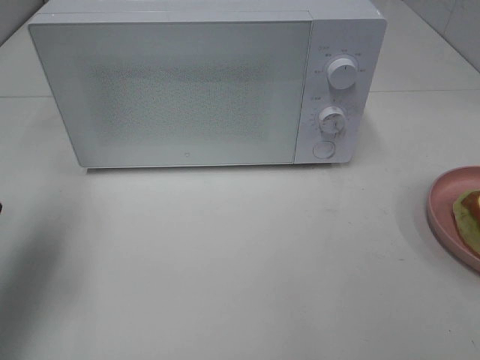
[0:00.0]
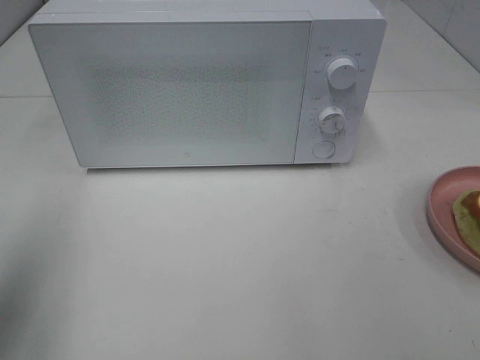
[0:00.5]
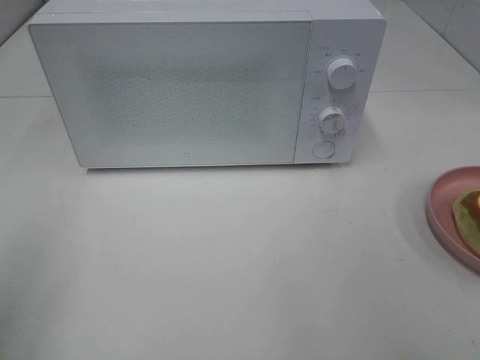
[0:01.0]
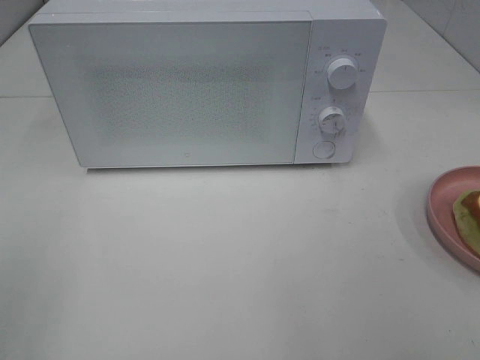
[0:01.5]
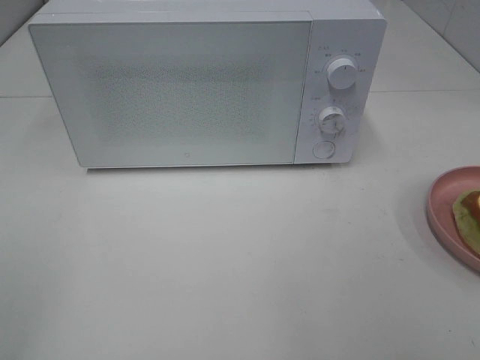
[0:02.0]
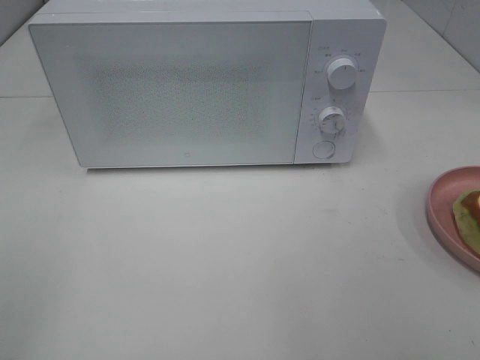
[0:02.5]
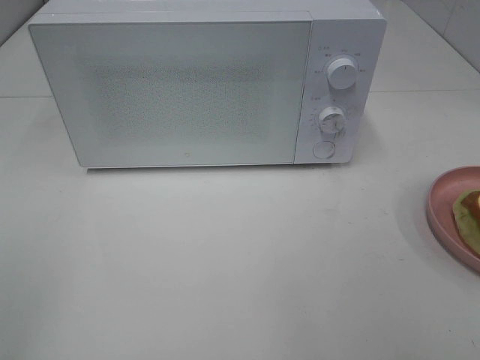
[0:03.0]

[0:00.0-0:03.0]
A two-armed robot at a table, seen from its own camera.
Task of the whole recording: Heat Sandwich.
0:00.0 to 0:01.5: The left gripper heads backward, covering approximately 20 cm.

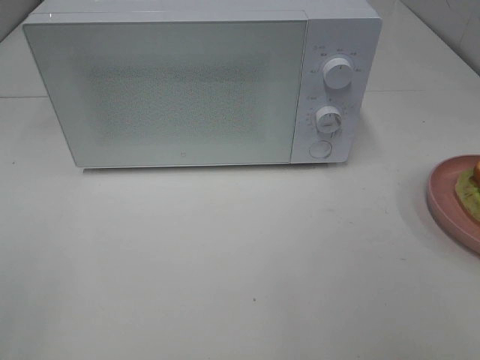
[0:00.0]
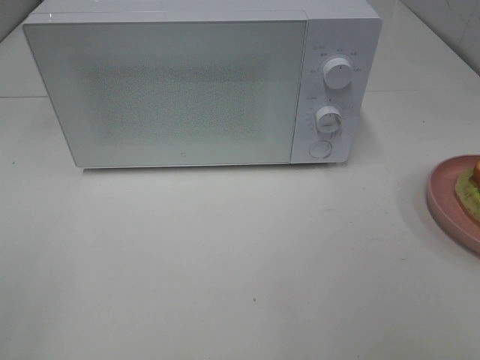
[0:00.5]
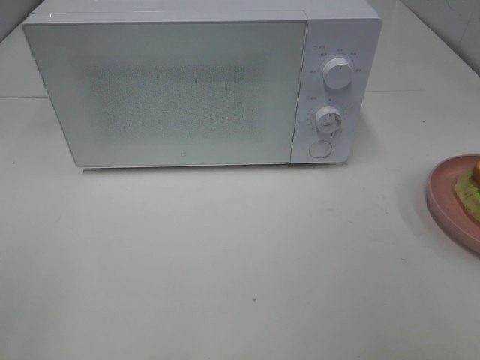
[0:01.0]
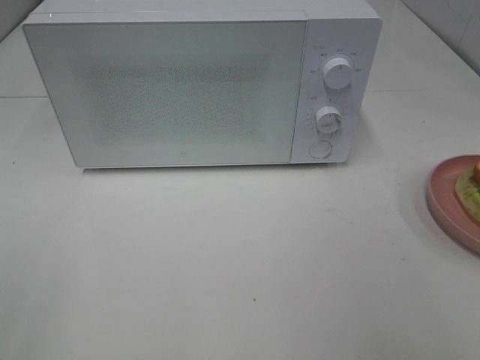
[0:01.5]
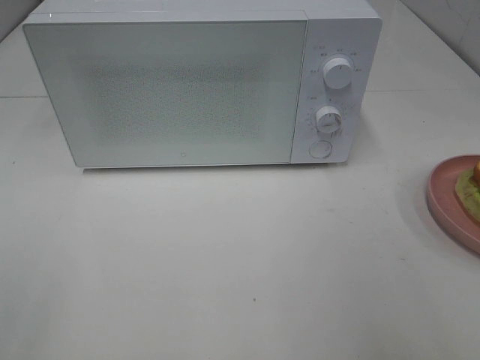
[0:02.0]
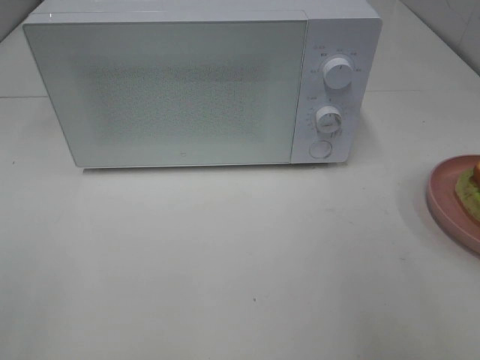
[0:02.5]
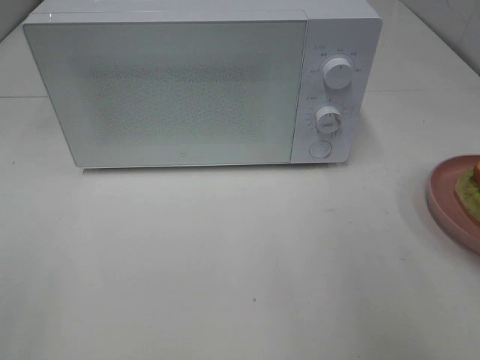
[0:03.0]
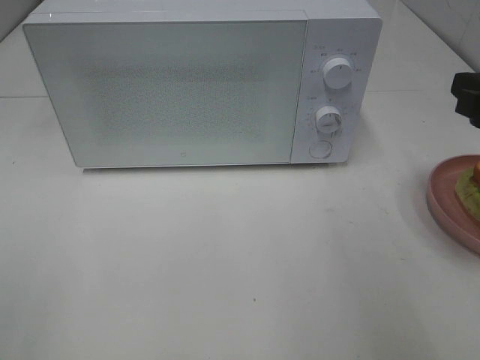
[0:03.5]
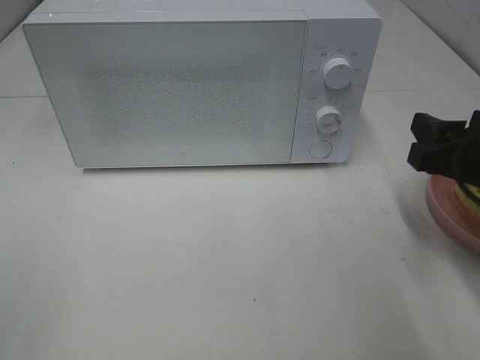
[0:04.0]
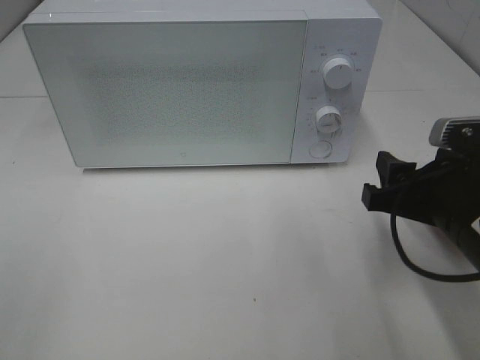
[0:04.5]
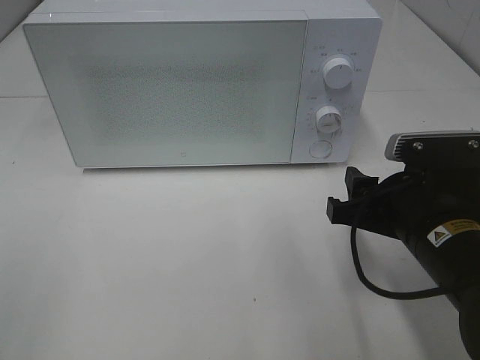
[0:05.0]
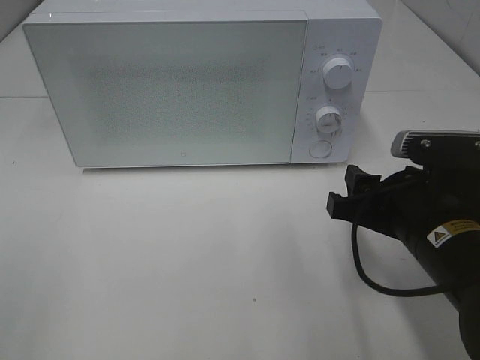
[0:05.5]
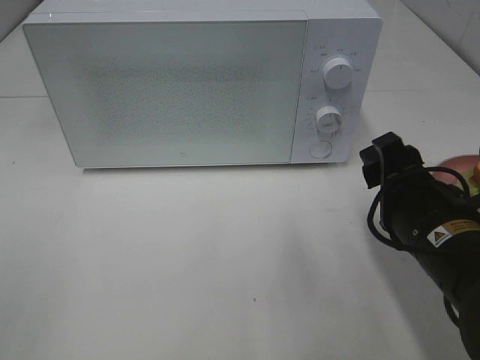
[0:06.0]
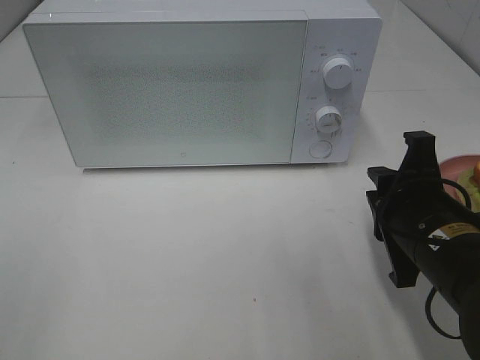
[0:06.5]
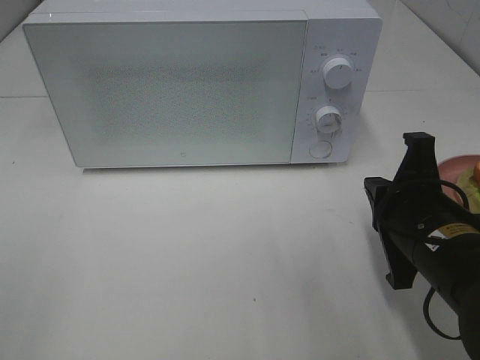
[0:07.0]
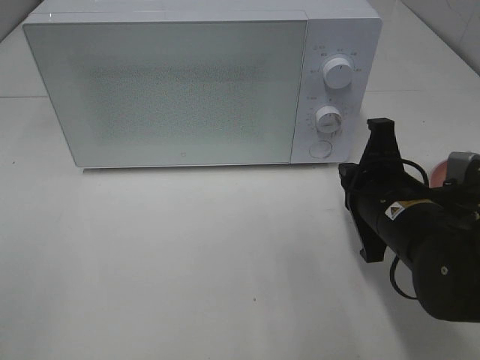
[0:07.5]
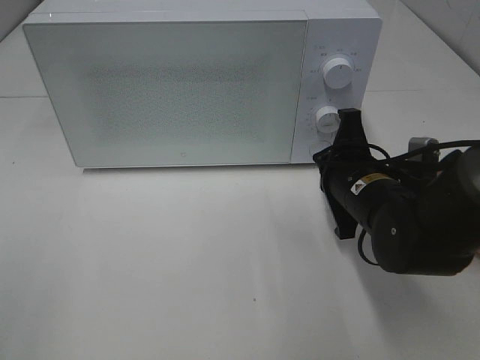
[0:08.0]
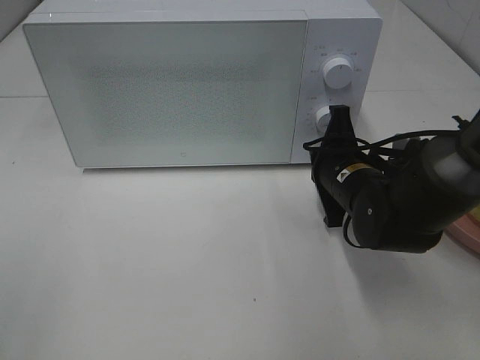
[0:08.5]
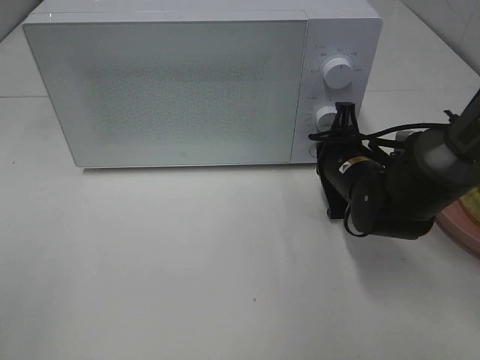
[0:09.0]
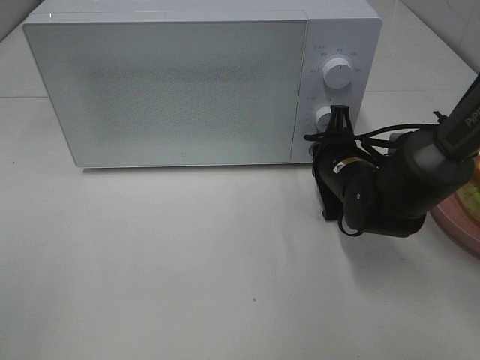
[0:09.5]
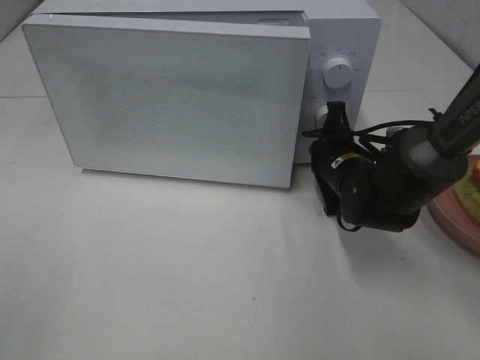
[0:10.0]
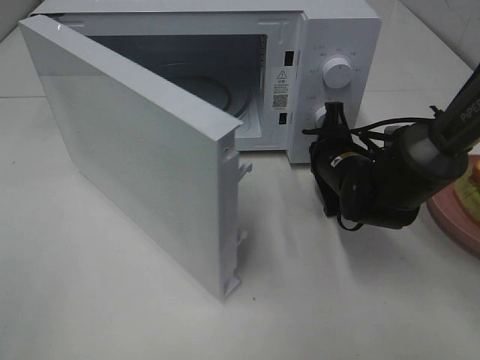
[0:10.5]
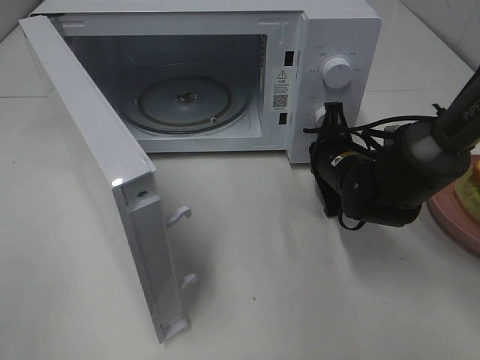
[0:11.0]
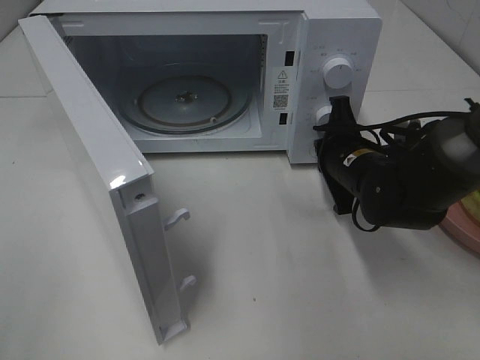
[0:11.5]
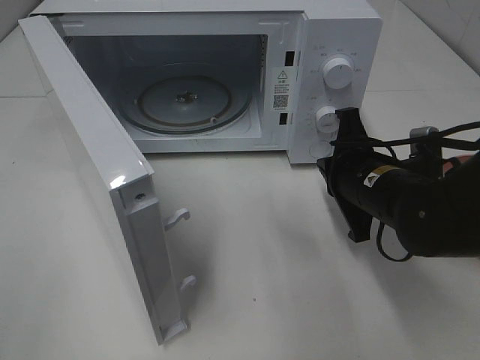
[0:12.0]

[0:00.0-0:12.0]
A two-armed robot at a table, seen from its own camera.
Task of the whole recording: Heat Sandwich.
Step, 0:00.0 to 0:11.5: Right hand: press the switch.
0:02.0 to 0:04.0: The right gripper shifts some 20 cm forward and downward.
0:04.0 to 0:06.0: The right gripper is displaced to the left by about 5 cm.
0:06.0 to 0:08.0: The right gripper heads forward, covering approximately 10 cm, and closes.
0:08.0 to 0:10.0: The right gripper is displaced forward by approximately 5 cm.
0:10.0 to 0:12.0: The right gripper goes about 10 cm backward.

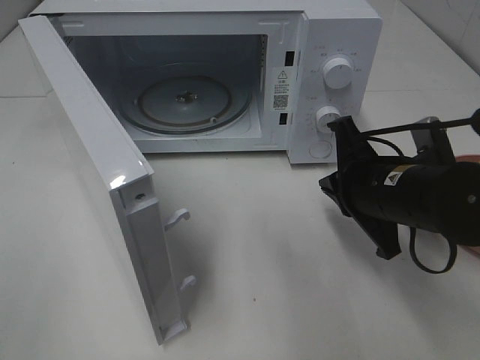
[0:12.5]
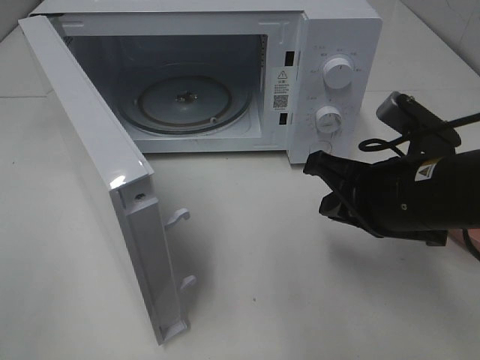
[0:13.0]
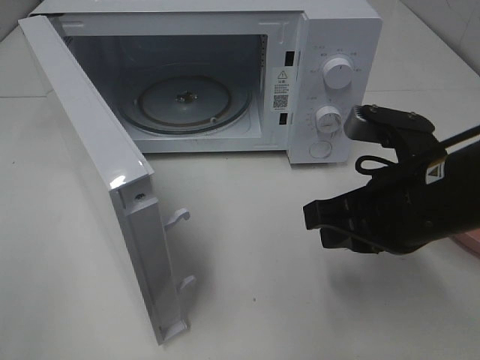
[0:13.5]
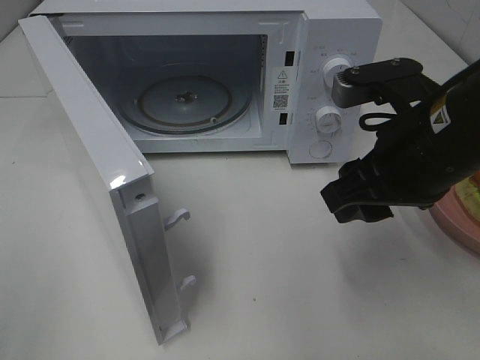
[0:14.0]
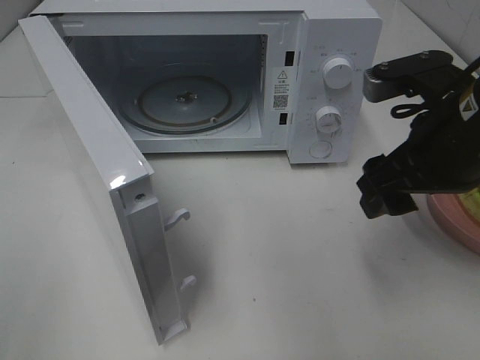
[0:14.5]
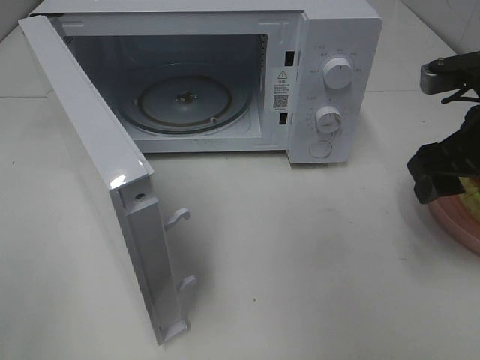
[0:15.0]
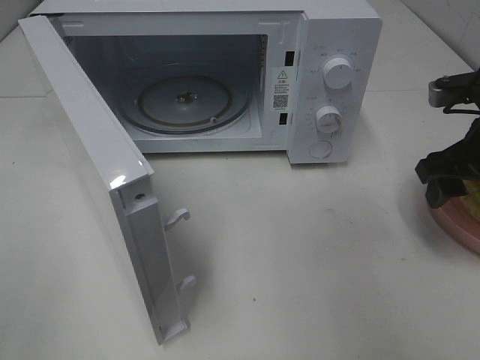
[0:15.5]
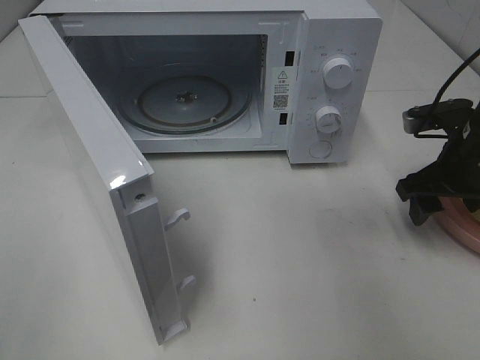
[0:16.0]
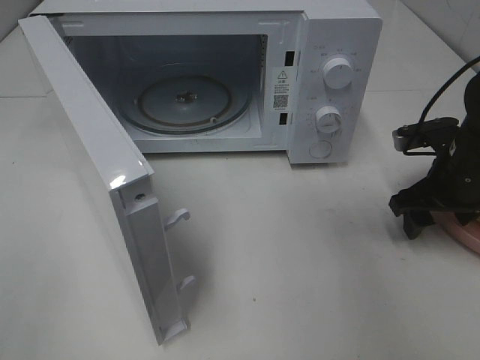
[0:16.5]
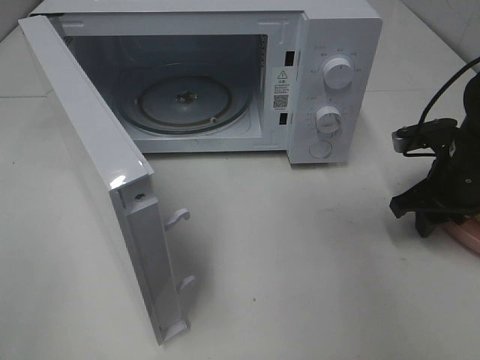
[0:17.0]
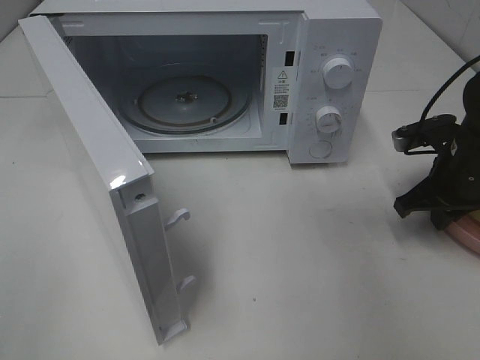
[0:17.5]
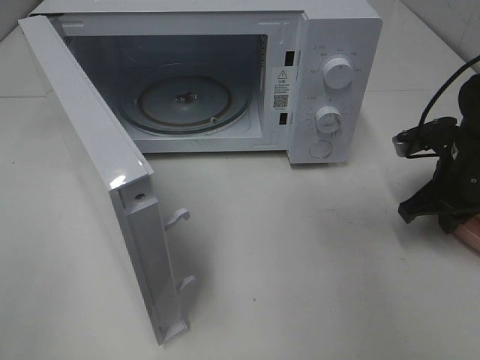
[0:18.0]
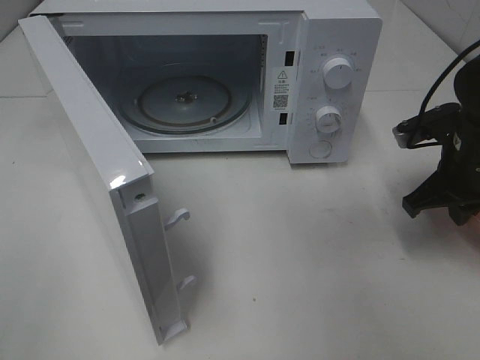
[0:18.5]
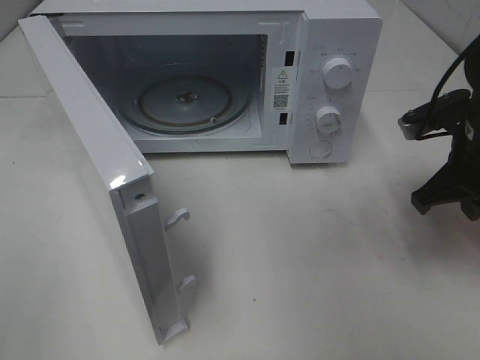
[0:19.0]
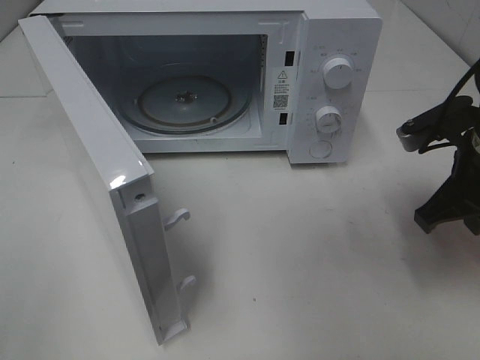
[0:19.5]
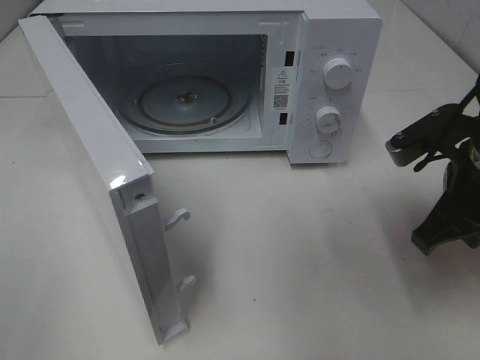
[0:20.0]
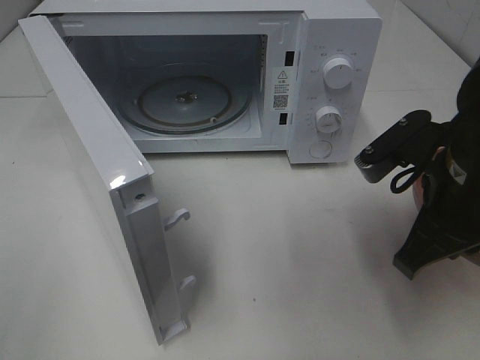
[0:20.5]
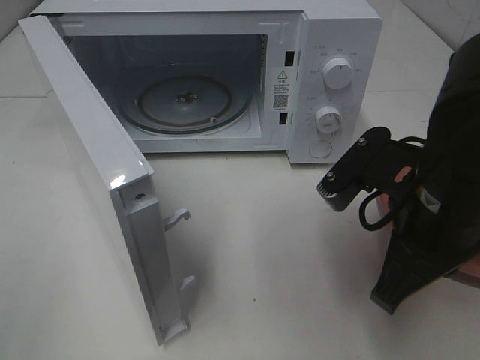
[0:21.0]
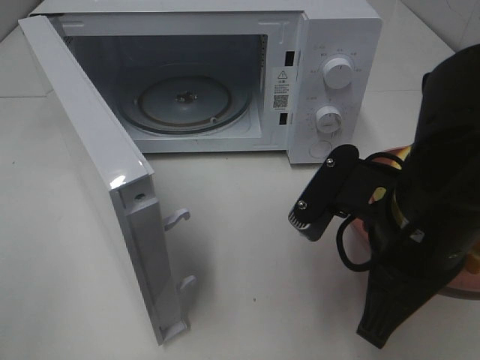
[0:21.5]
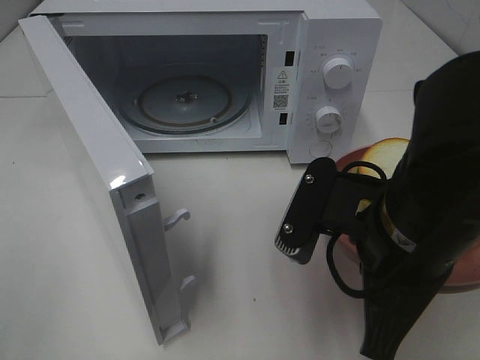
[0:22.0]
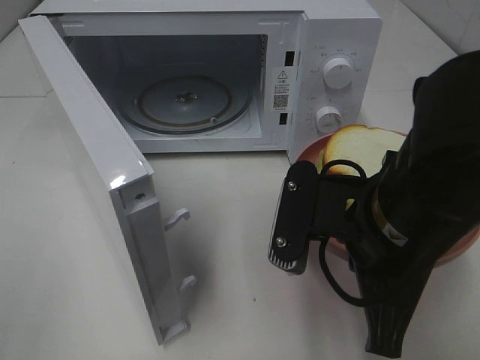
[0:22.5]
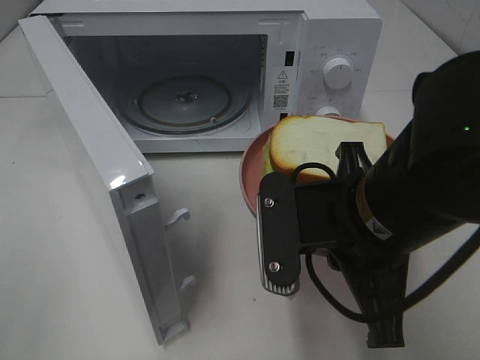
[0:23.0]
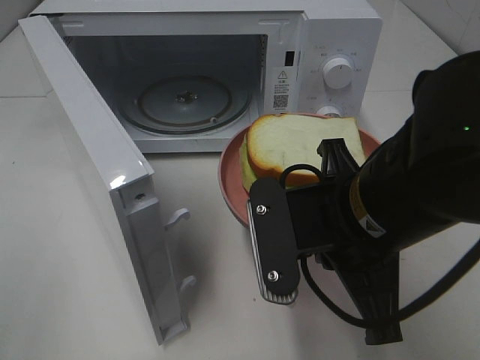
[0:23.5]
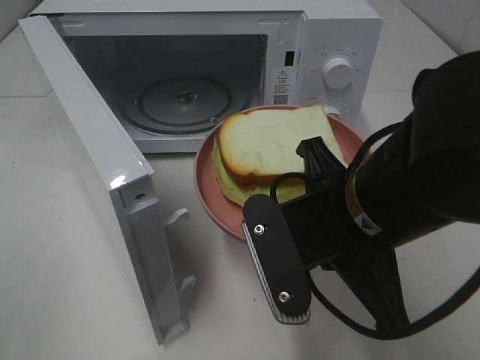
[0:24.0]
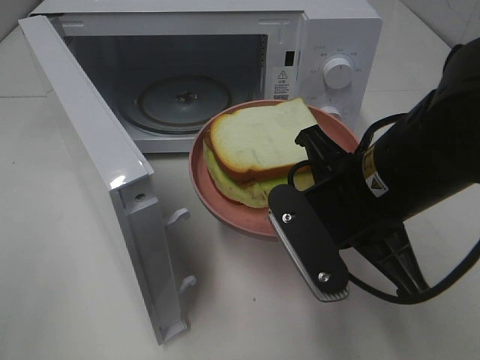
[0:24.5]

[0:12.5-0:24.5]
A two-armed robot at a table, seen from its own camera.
Task of the whole recording: Heat Sandwich.
Step, 0:12.5 to 0:17.5: Right hand: grab the plate with the sandwich.
0:12.5 to 0:14.5: The right gripper travels upward by some 10 cm, and opens.
0:14.5 to 0:16.5: The right gripper is displaced downward, forward and to the right by some 15 cm.
0:16.5 to 0:18.5: The right gripper closes its fingers.
0:18.5 to 0:20.5: The right gripper is displaced backward, to the left and upward by about 15 cm.
0:20.5 to 0:22.5: The right gripper moves to the left, approximately 10 cm.
